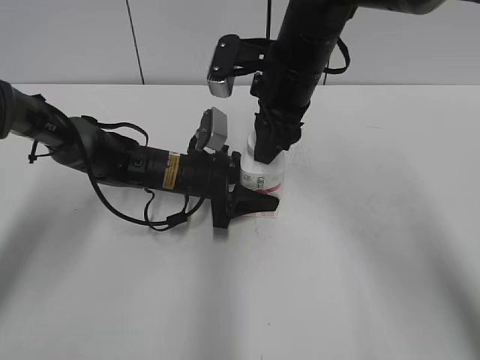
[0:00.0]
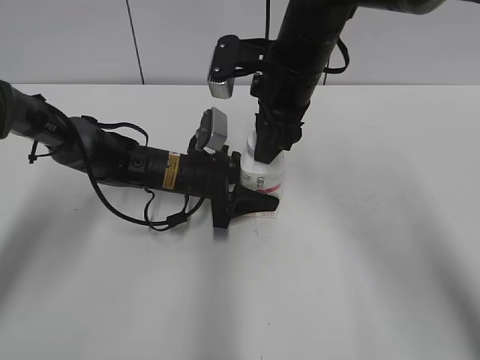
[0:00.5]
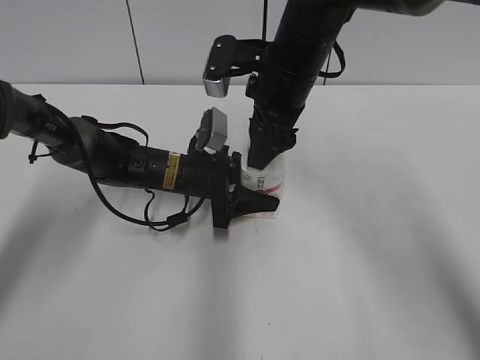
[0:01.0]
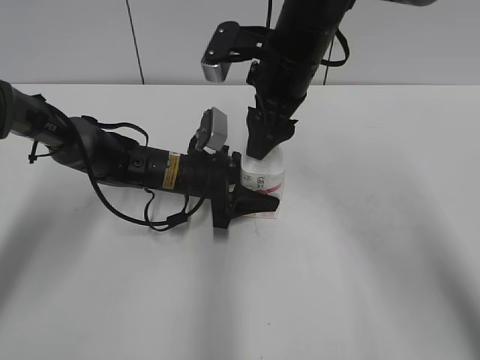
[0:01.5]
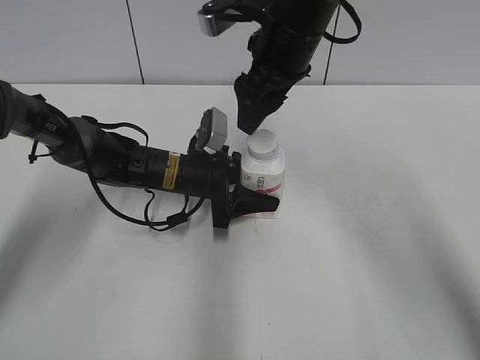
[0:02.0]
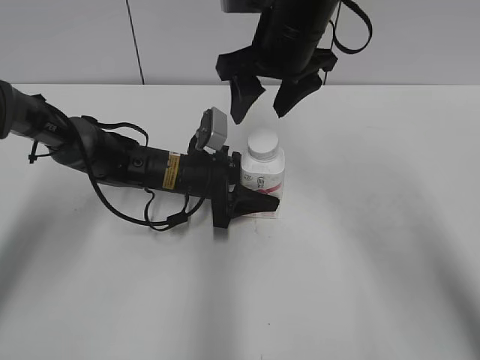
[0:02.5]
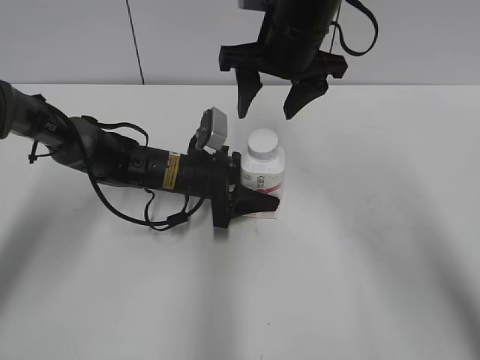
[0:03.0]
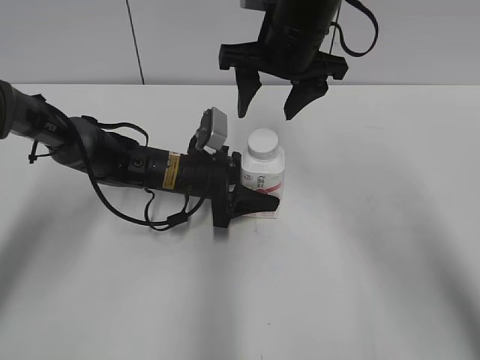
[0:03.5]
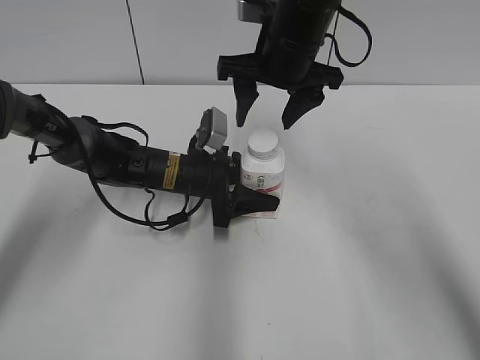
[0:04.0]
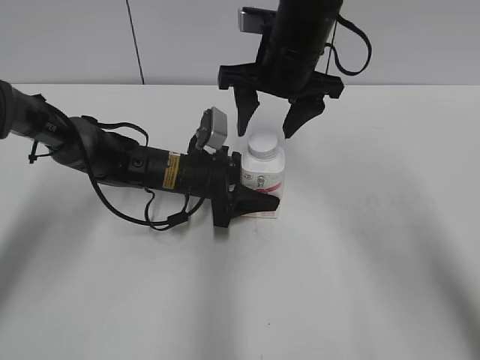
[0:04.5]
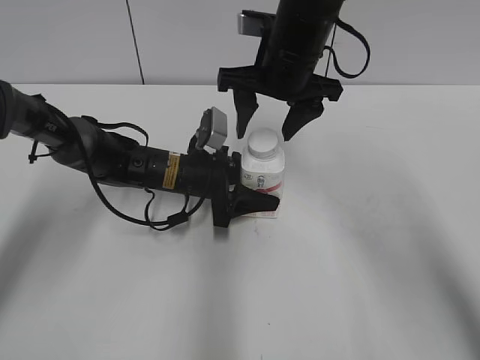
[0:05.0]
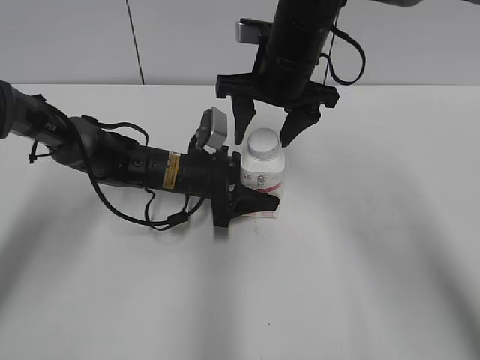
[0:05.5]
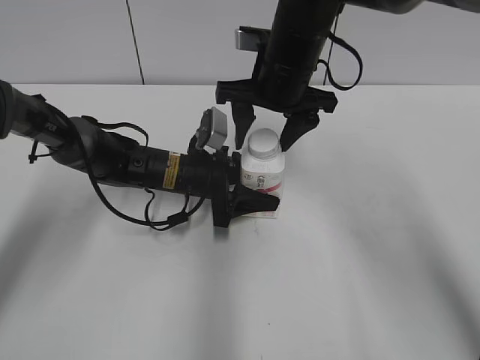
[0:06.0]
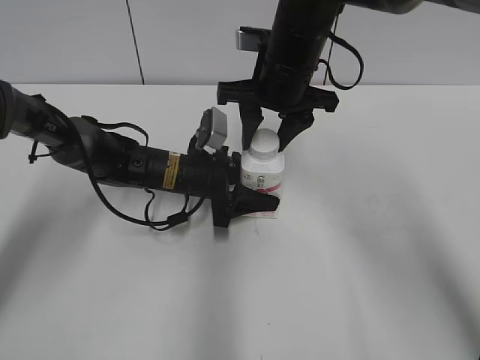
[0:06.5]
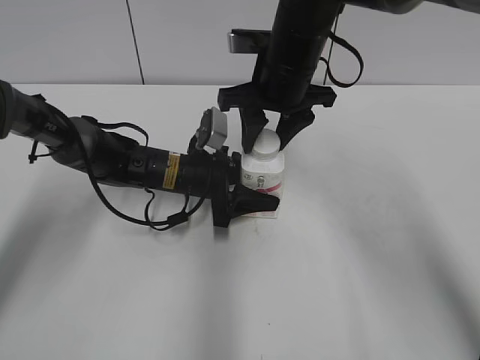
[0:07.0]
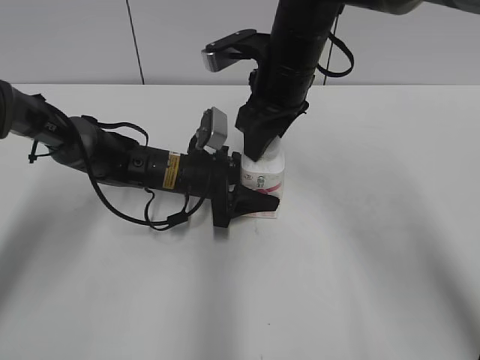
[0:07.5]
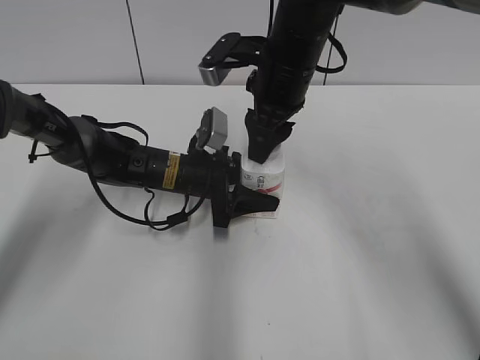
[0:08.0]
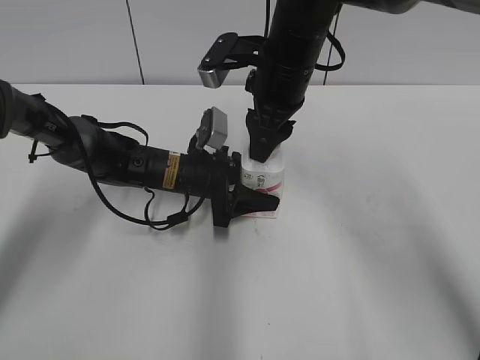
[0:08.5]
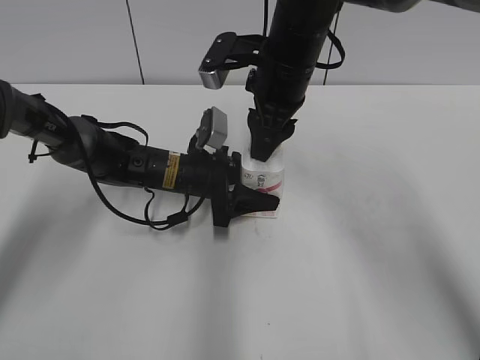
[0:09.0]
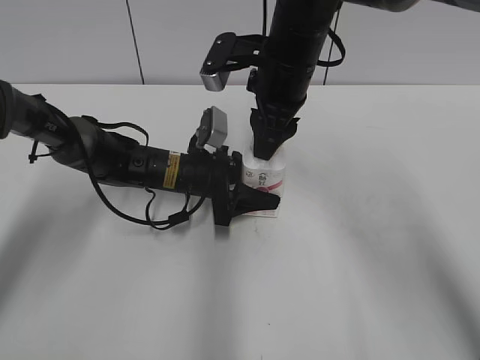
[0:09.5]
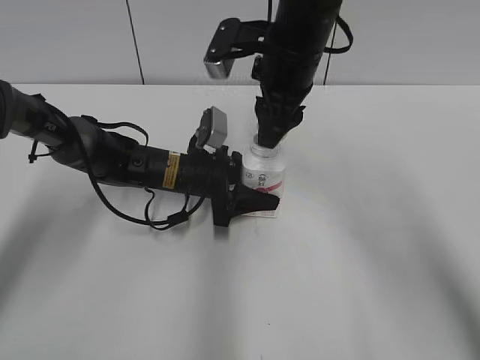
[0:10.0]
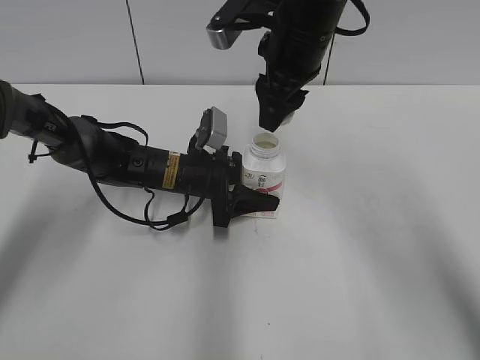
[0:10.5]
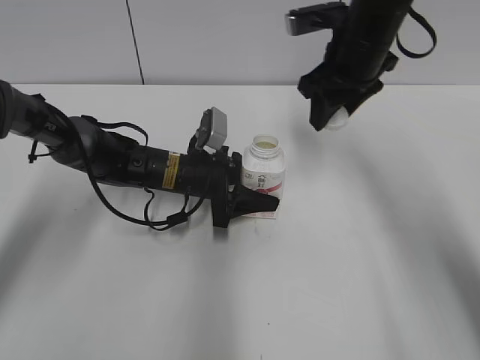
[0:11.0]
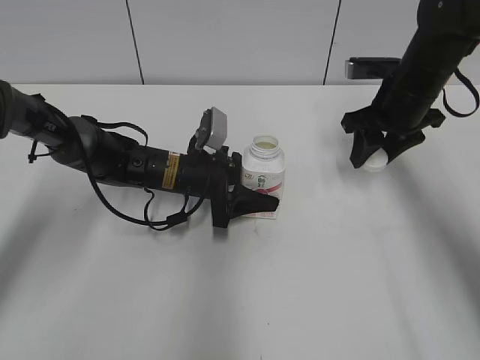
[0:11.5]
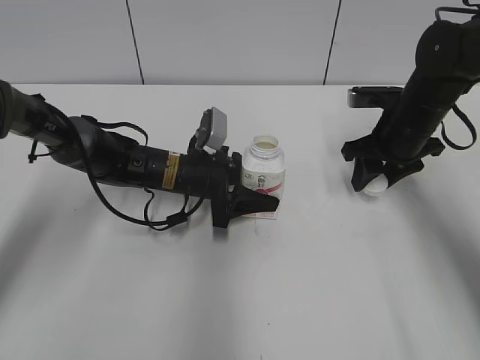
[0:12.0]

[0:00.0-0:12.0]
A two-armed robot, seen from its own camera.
Step, 0:00.0 to 0:10.0: Unscrew the bottle cap with the right gripper while holding the bottle with the left gripper.
0:00.0 to 0:02.0: The right gripper opens its fingers.
0:04.0 to 0:06.0: There are only small adjustments of the grippers.
0:06.0 to 0:08.0: The right gripper closes.
0:08.0 to 0:10.0: There are only small adjustments of the grippers.
0:10.0 to 0:12.0: The right gripper goes roughly 20 cm to the right and downward.

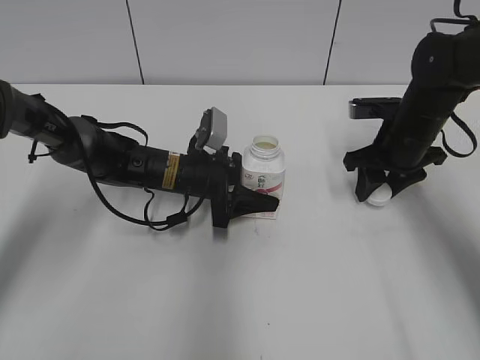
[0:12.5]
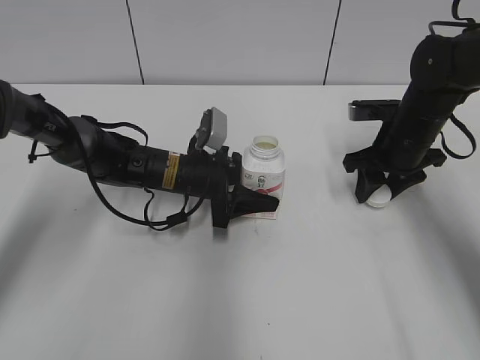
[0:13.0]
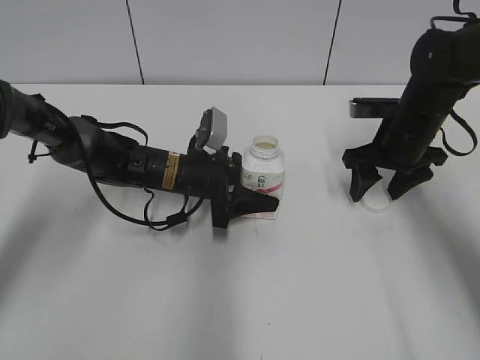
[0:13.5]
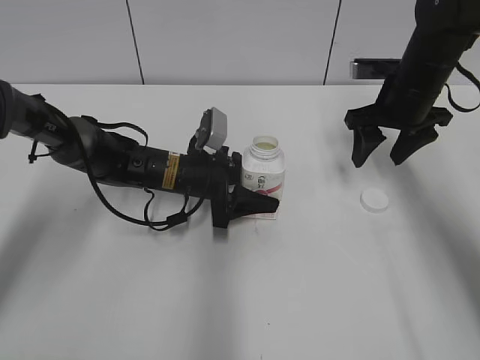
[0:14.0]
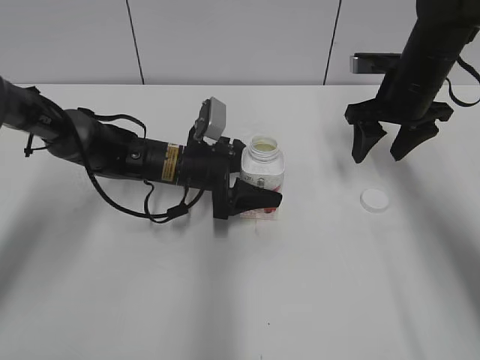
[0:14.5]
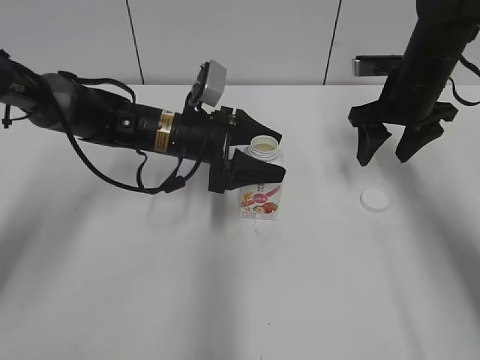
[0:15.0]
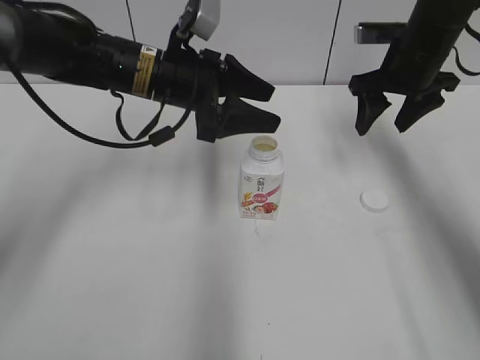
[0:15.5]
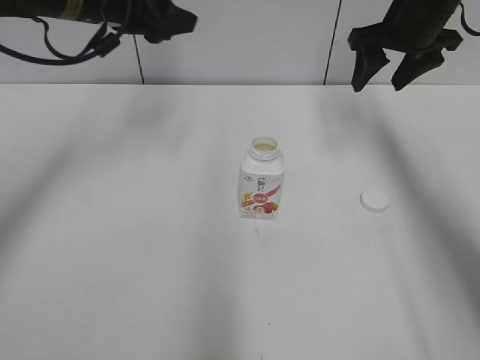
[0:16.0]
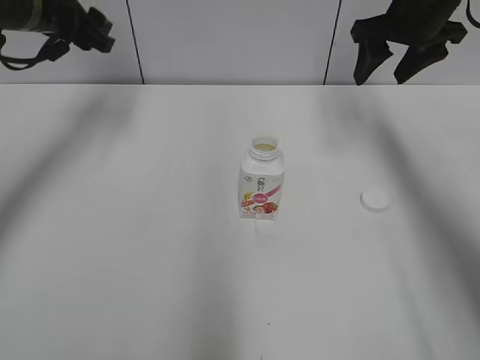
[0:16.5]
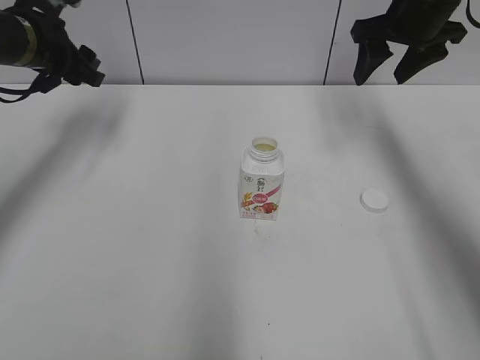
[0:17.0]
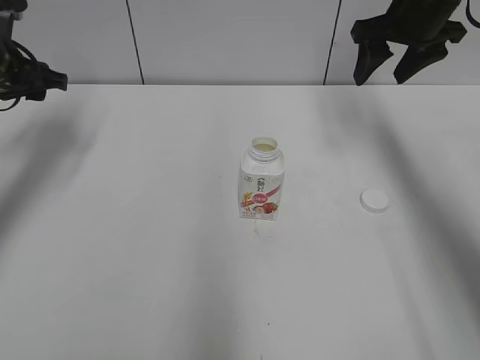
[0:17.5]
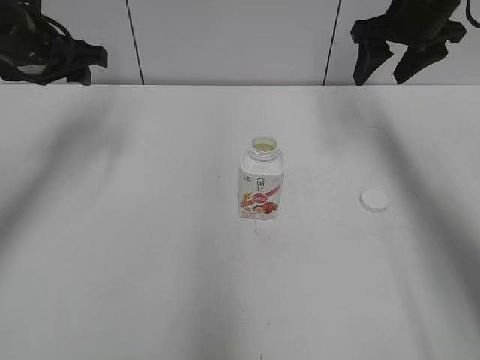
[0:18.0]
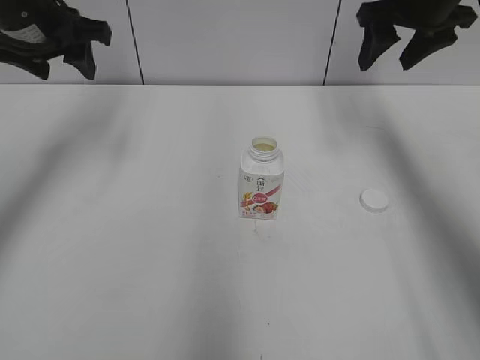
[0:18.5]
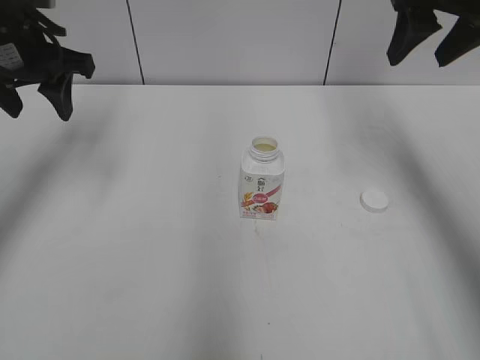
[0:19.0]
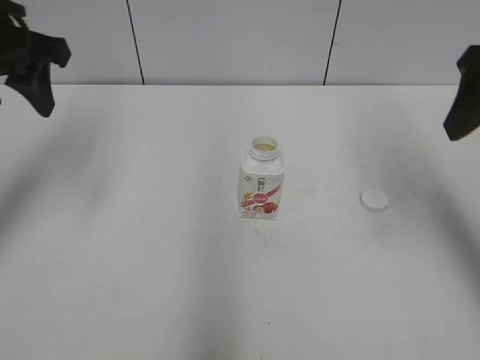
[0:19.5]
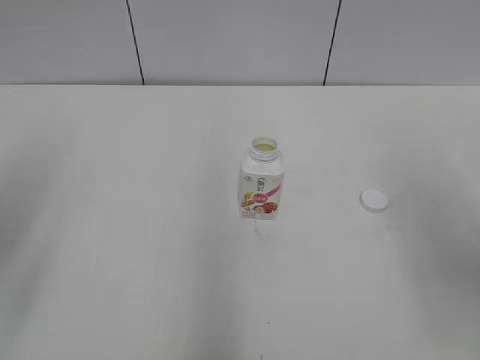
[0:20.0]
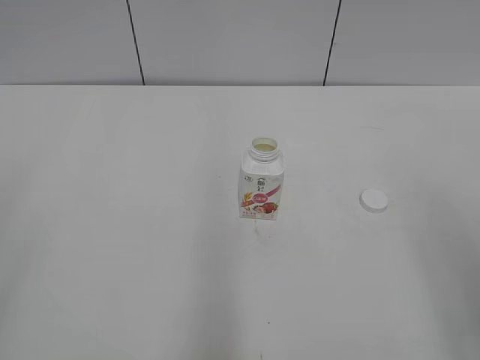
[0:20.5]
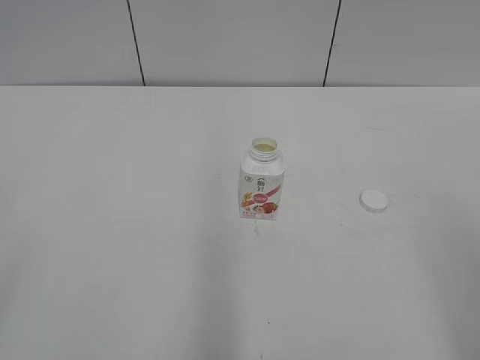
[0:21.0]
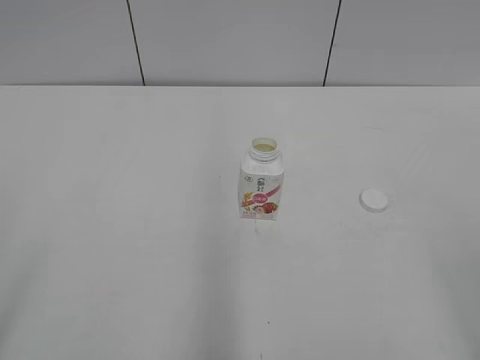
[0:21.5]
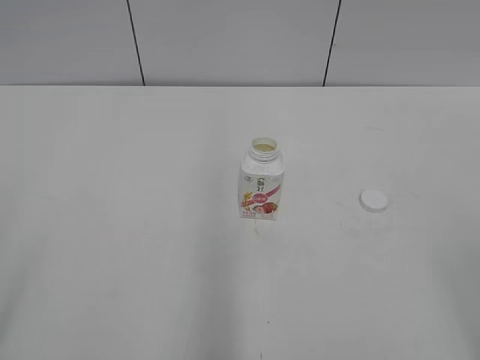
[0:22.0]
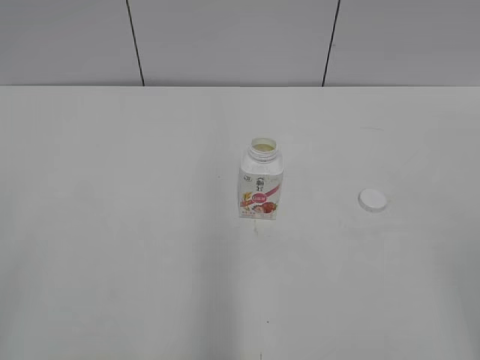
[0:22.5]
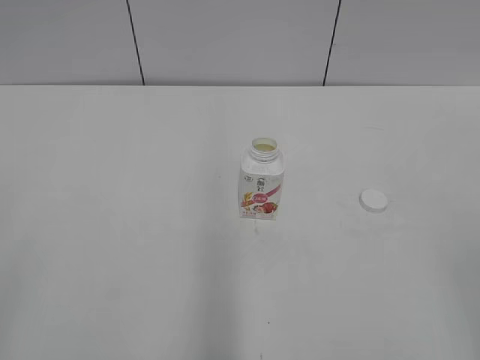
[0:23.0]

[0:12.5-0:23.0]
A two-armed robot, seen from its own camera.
Step, 0:13.5 to 0:14.5: Place the bottle on the table with the left gripper.
0:12.5 to 0:14.5: The right gripper moves upward, approximately 5 cm, and opens. The left gripper opens.
0:14.5 to 0:16.5: The left gripper goes some 25 cm upward and to the left, and closes; the right gripper moves upward, some 10 cm.
0:16.5 to 0:19.0: The right gripper goes approximately 10 cm backward and upward; the left gripper is displaced backward by approximately 5 cm, and goes downward and returns, about 5 cm each way.
0:19.0 to 0:21.0: The grippers both shift backward by approximately 35 cm.
